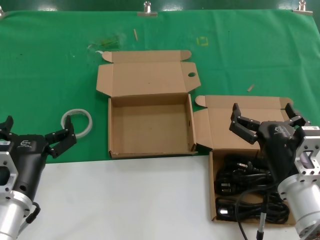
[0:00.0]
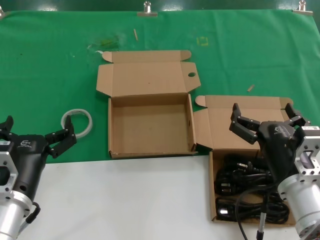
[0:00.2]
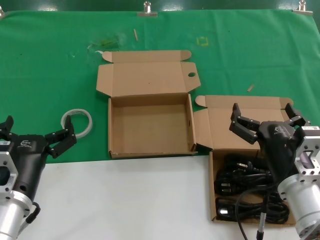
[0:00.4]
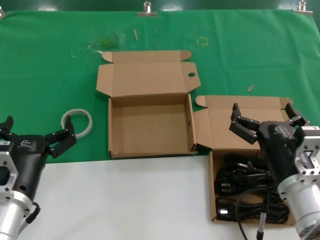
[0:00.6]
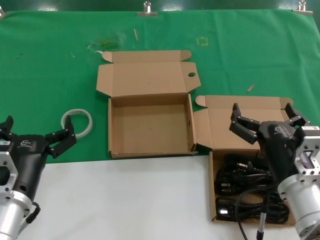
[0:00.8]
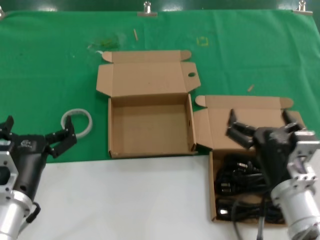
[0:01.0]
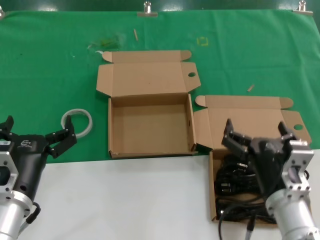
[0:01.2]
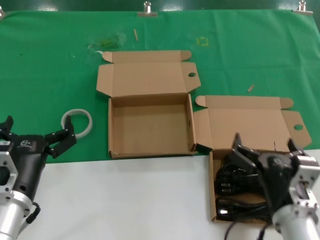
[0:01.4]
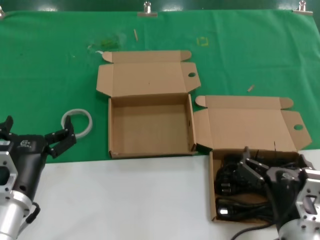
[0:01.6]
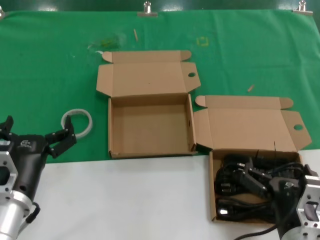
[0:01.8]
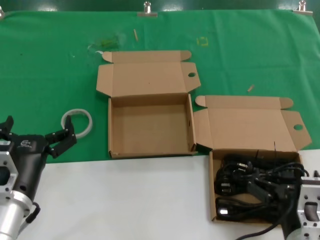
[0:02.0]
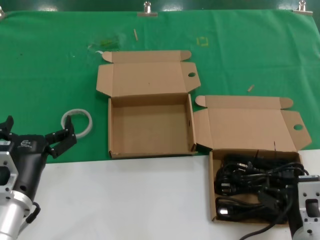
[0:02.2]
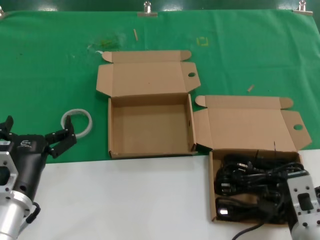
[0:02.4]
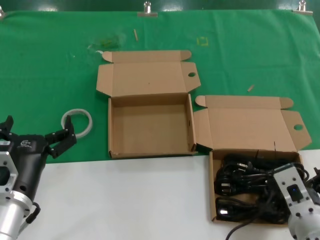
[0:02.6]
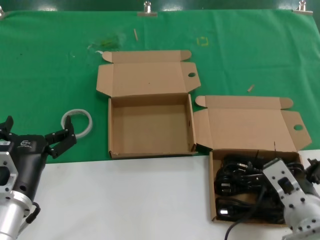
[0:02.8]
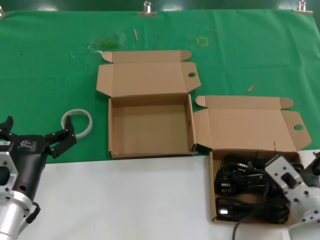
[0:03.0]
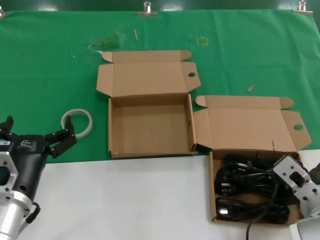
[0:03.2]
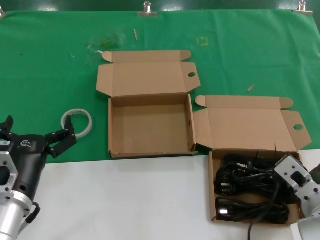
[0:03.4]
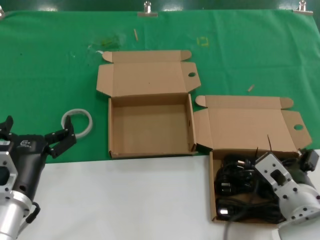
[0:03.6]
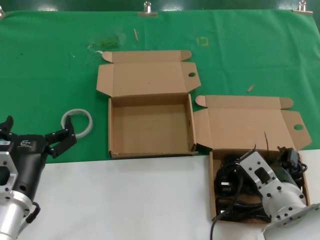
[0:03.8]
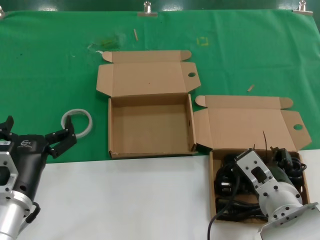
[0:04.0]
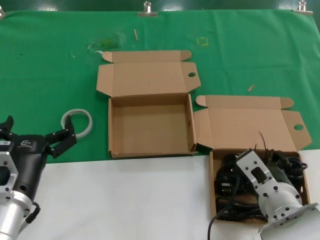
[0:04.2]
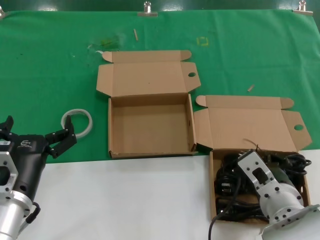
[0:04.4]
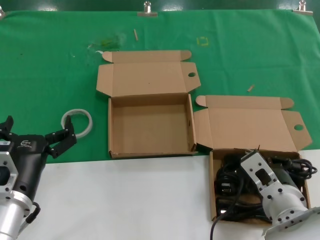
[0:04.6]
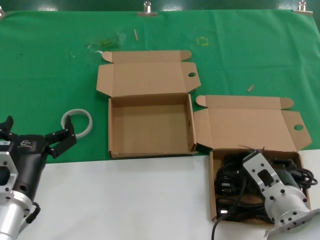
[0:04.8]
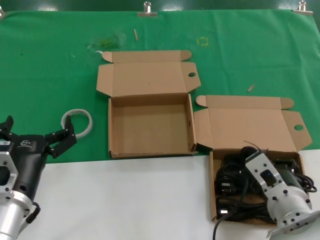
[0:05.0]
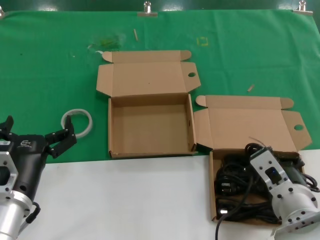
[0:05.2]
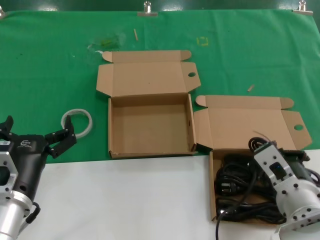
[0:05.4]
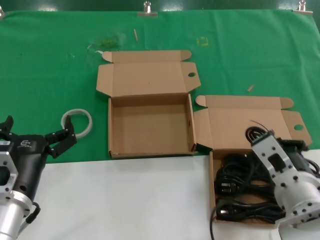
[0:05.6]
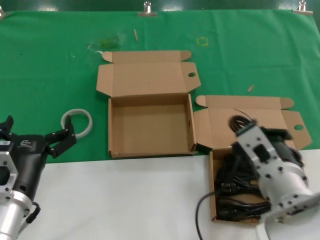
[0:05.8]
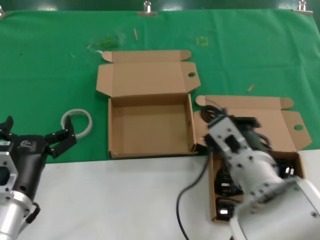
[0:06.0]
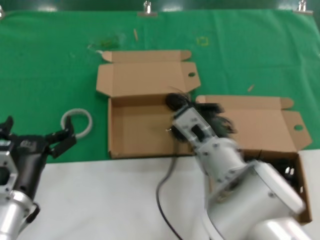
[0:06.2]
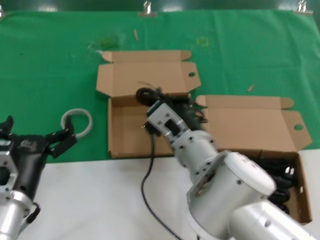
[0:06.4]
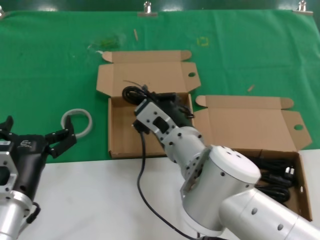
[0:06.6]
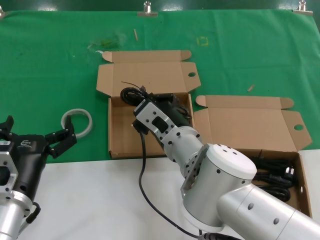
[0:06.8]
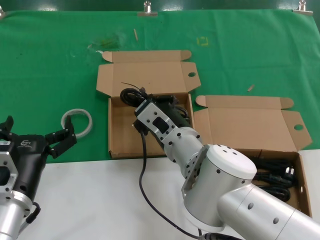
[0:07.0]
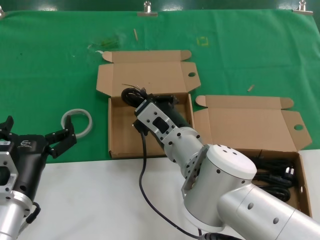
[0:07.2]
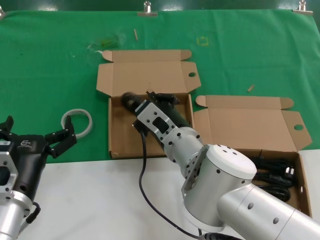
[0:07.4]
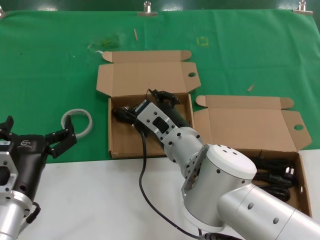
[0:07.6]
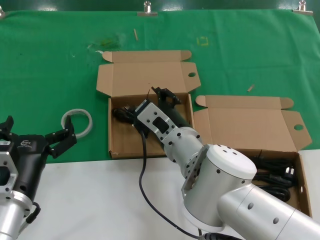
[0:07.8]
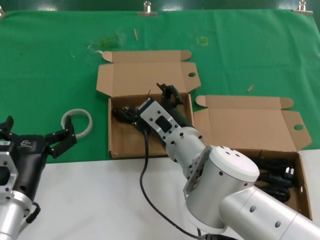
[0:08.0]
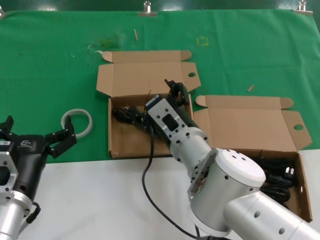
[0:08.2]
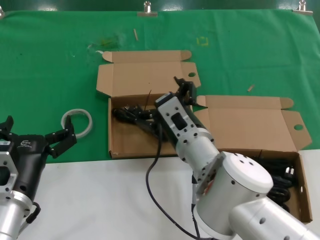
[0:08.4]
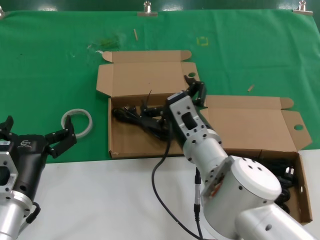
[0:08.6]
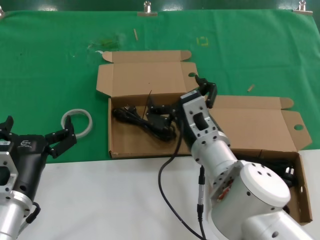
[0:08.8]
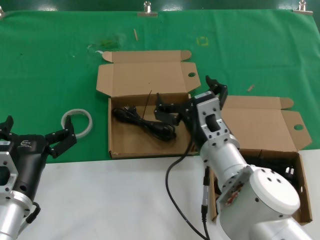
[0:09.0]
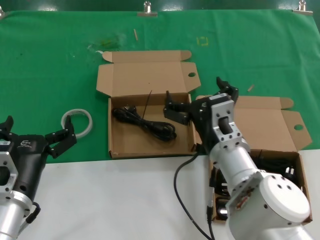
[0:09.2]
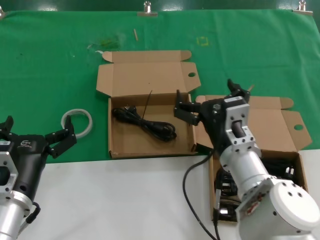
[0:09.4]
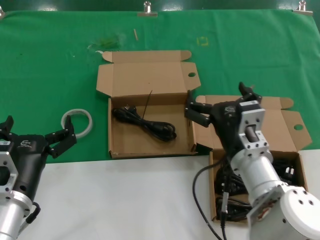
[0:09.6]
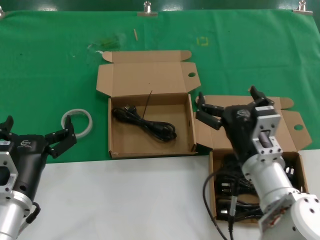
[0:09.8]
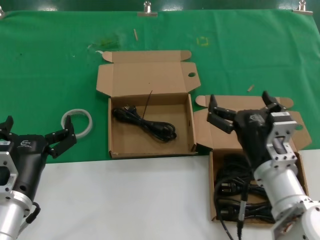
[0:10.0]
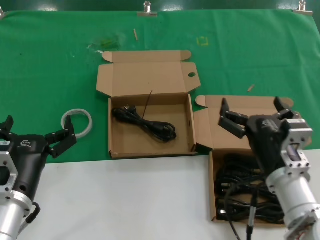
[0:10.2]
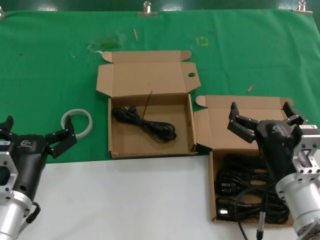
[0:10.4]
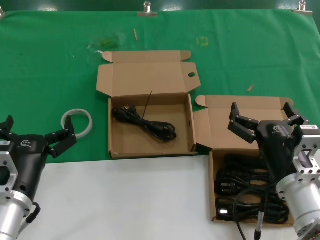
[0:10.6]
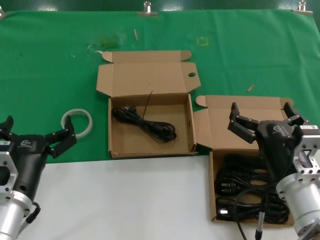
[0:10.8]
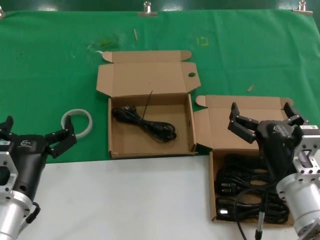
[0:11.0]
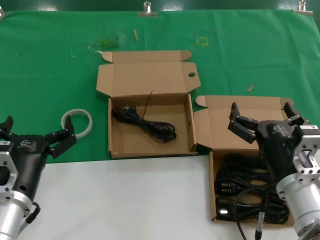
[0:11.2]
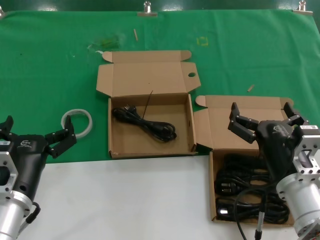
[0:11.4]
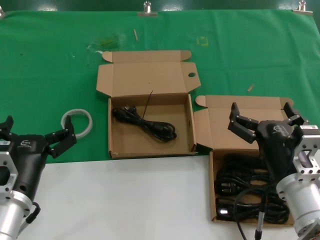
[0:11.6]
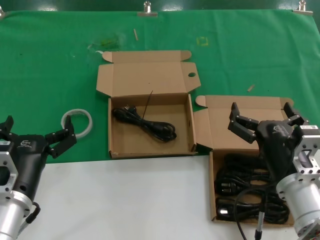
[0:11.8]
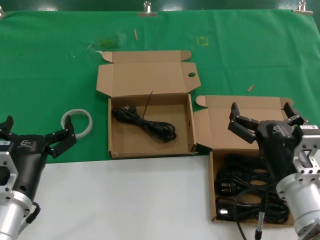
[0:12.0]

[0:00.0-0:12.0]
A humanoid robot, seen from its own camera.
Task of the whole recording: take the parts from the box containing them and put them into an empty box.
Step, 0.0 to 4.4 s: Grasp the data cable.
Step, 4.6 to 7.6 s: Place the data cable in the another box.
0.0 to 1.6 s: The right hand travels backward by about 5 cm.
1.6 to 3.0 s: The right hand travels forward by some 5 cm.
3.0 to 4.4 s: The hands make only small movements.
4.4 to 6.0 s: The right hand is displaced upward by roughly 5 cm.
6.0 to 7.6 s: The right hand heads to the left and forward, covering about 10 cm.
7.6 to 9.0 s: The right hand travels to the right by about 5 cm.
9.0 to 10.4 s: The right hand travels to the right and backward by some 15 cm.
10.4 to 12.0 s: Both hands stay put.

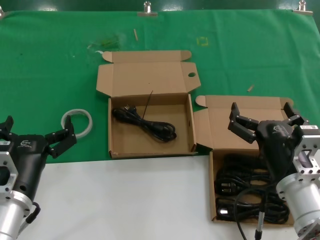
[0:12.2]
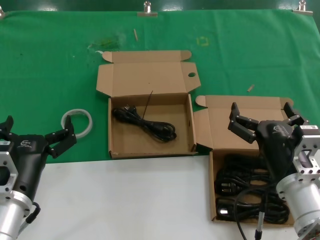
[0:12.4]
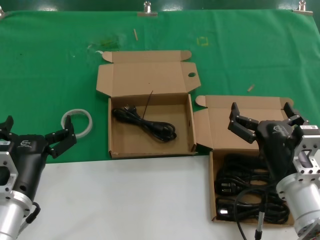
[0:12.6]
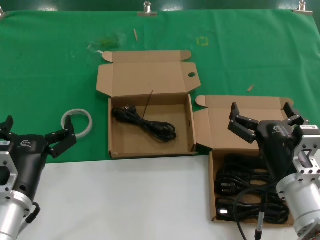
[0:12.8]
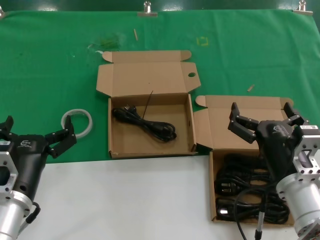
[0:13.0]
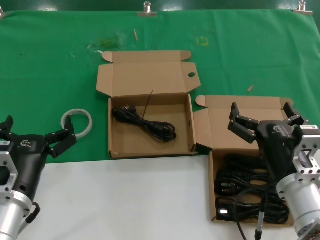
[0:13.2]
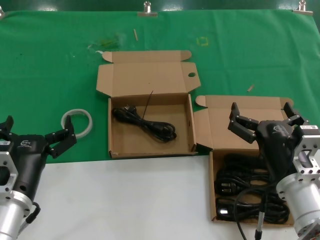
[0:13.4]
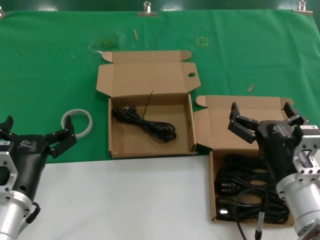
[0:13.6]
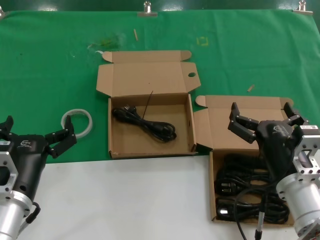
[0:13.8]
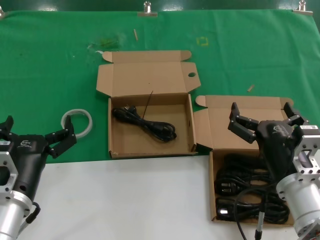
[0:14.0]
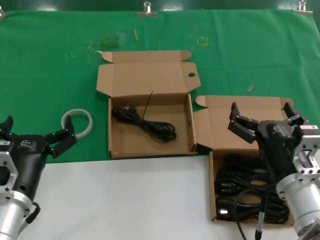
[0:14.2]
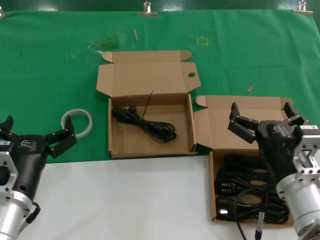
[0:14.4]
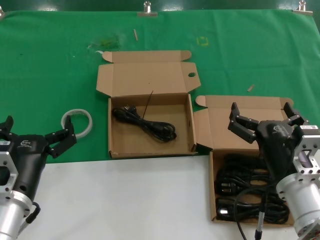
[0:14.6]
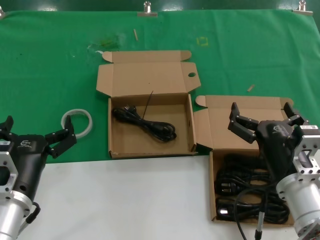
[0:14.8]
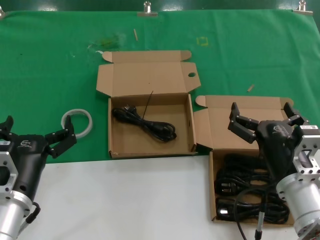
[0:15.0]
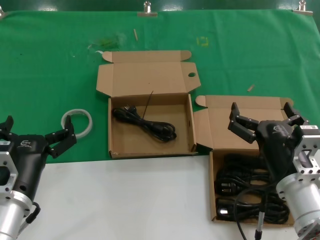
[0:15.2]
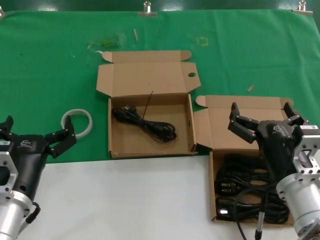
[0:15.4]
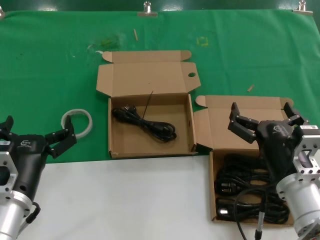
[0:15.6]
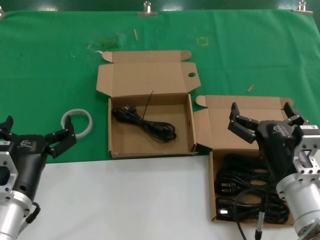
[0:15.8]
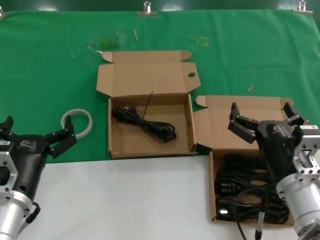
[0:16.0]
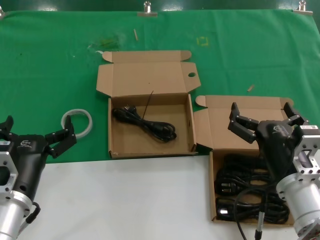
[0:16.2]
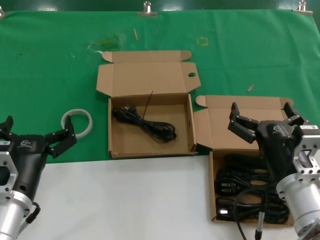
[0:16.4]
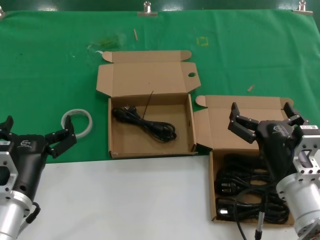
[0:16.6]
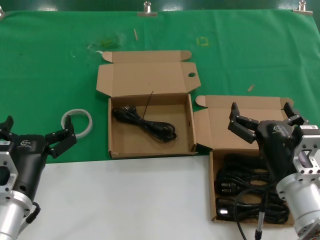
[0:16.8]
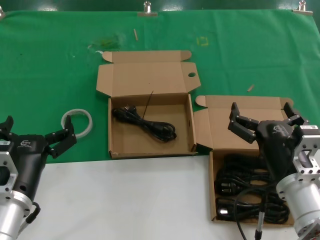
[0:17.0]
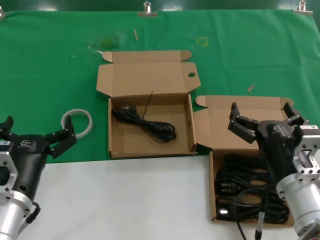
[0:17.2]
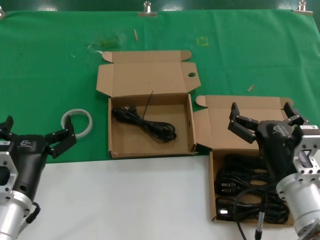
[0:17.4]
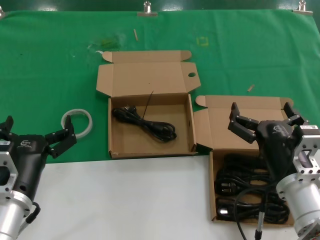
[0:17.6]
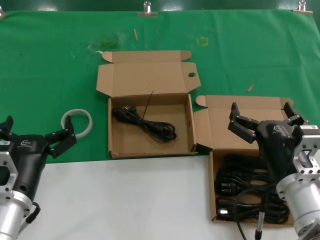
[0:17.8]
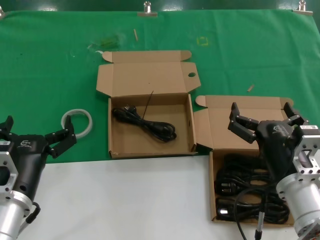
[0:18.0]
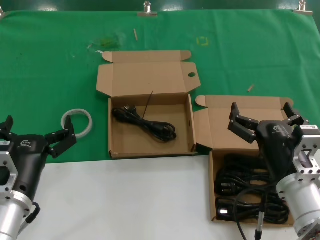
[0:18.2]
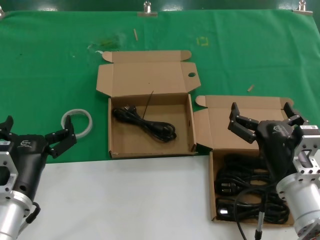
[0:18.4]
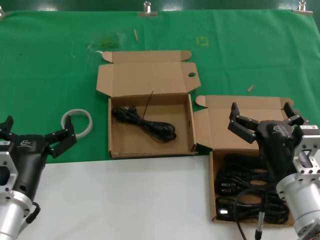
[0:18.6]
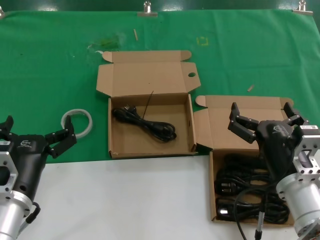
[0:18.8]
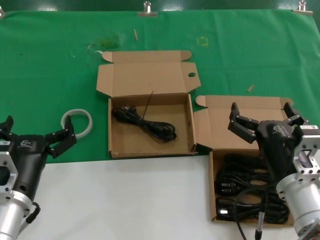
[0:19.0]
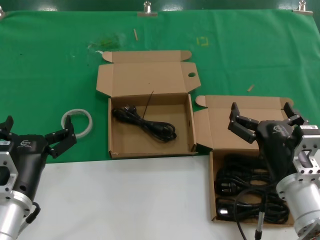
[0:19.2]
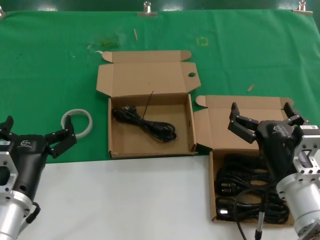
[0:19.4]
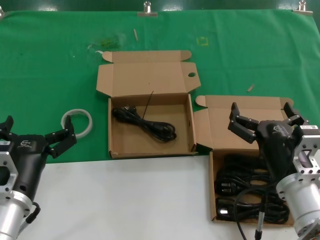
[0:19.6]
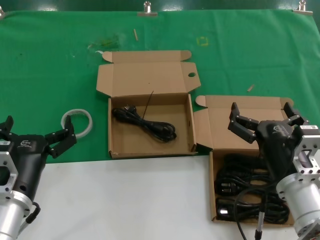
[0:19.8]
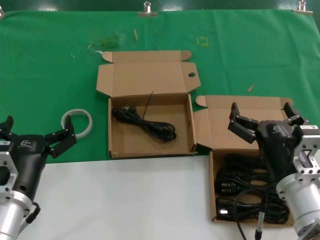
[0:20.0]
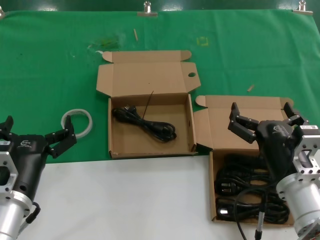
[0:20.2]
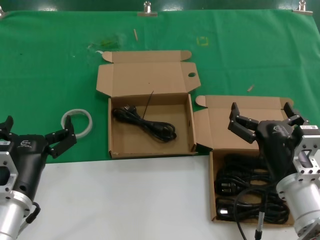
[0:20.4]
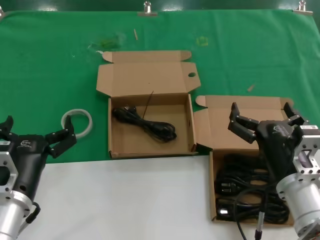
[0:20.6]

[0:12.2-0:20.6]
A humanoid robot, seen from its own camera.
Task of the whole recording: take the parts from the box containing them and put them into an empty box.
12.2 to 20.6 s: Both hands stay put.

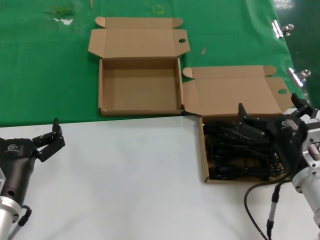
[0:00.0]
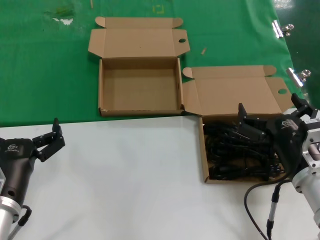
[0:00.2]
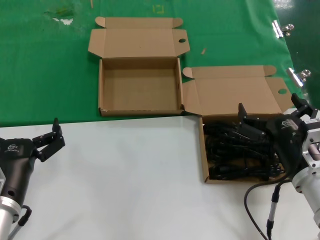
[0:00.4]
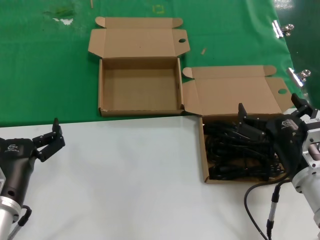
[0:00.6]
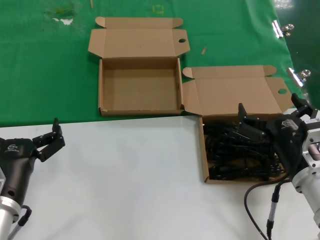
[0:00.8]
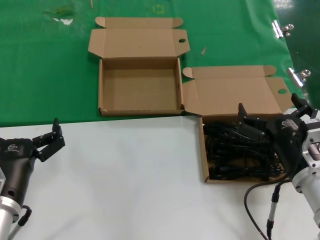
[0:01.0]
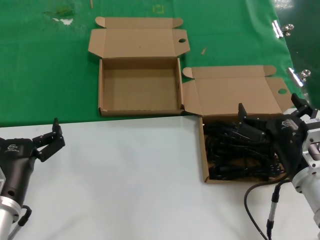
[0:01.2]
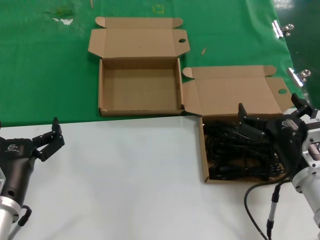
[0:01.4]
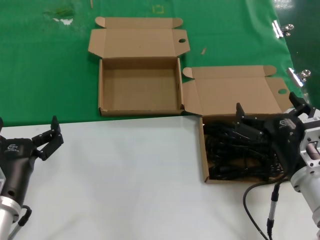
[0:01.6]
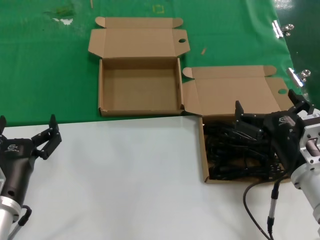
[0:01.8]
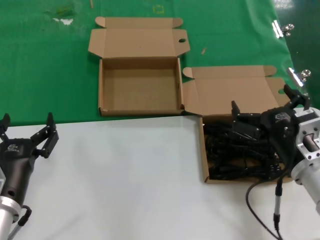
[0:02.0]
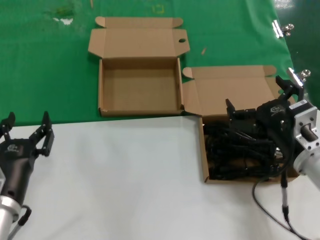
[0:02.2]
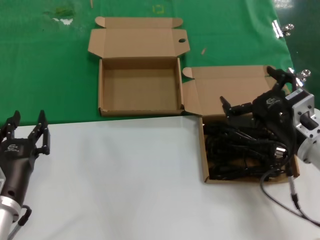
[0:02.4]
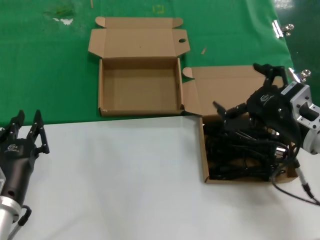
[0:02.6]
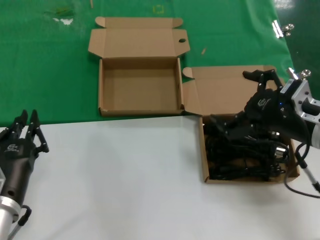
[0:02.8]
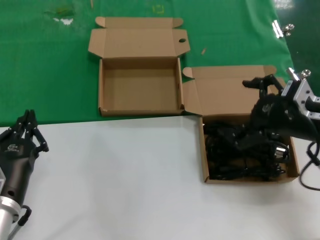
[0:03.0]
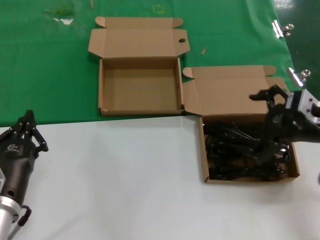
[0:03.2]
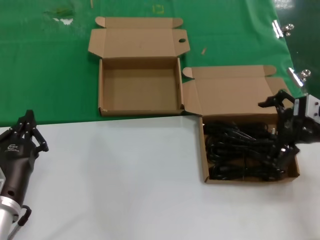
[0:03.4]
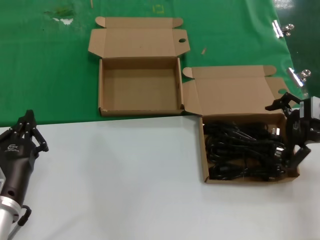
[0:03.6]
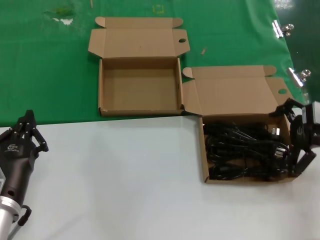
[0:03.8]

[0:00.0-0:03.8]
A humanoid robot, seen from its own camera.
Task of the whole recording: take the parts from the box containing them and put them into an empty box.
0.0 to 1.2 s: Both hands stay about where they are.
1.2 to 2.6 s: The right hand moves upward, roughly 5 cm.
2.6 to 3.8 s: The right hand is displaced to the right, upward and forward by some 15 cm.
